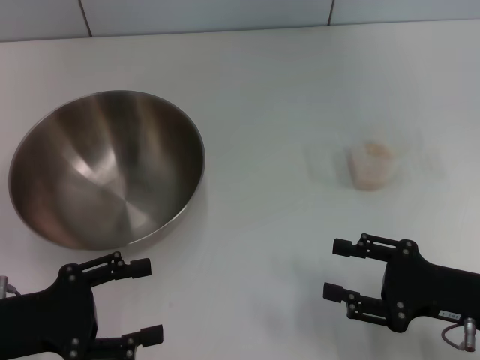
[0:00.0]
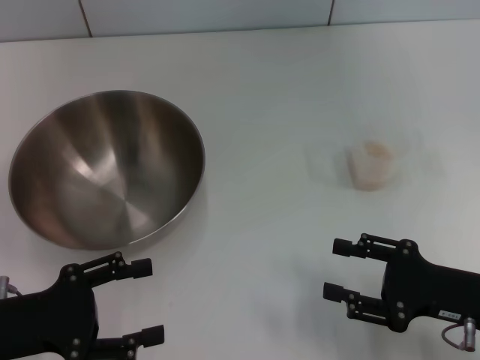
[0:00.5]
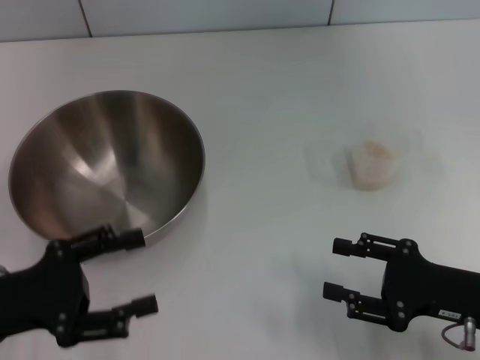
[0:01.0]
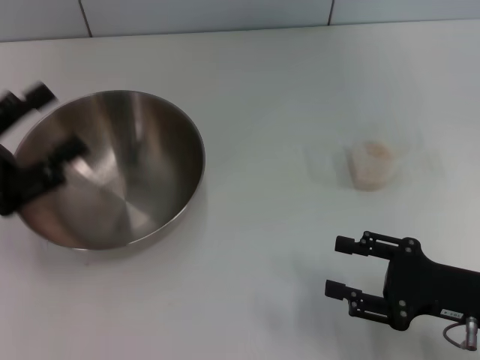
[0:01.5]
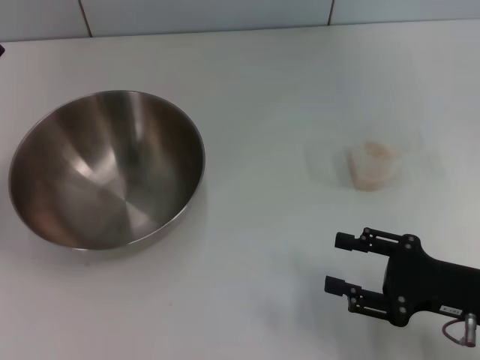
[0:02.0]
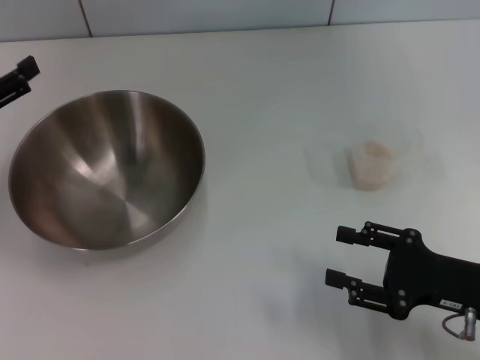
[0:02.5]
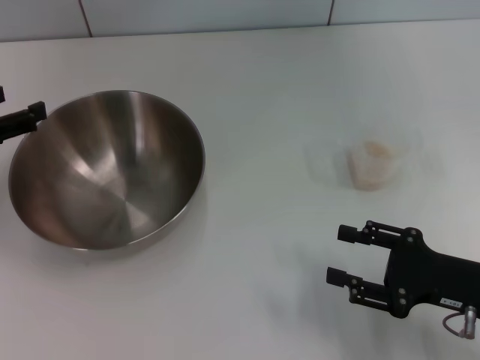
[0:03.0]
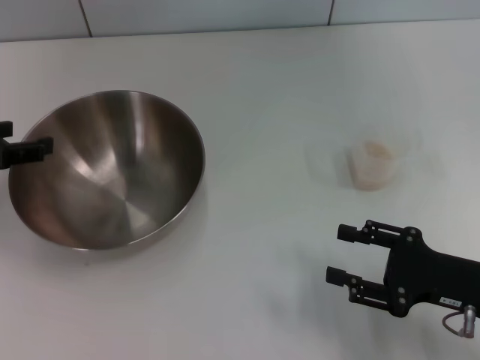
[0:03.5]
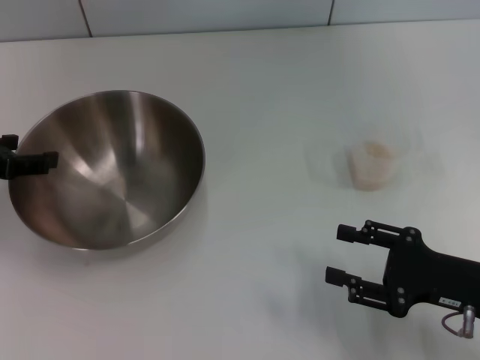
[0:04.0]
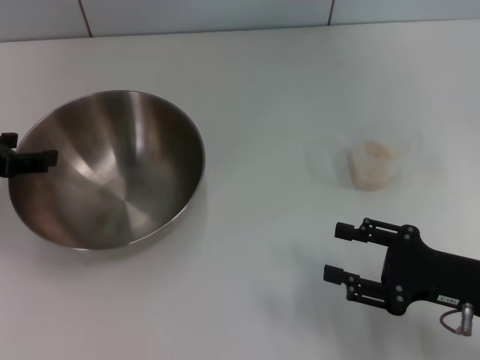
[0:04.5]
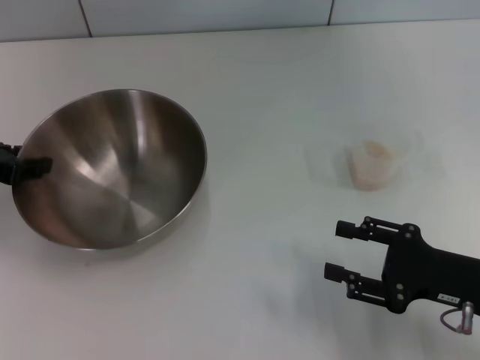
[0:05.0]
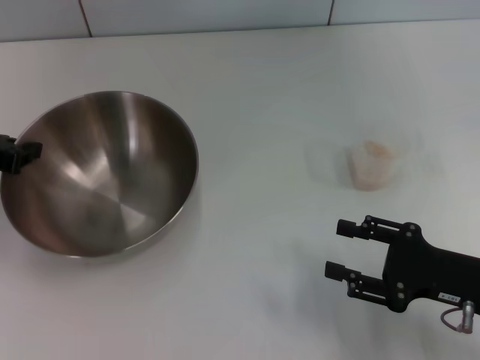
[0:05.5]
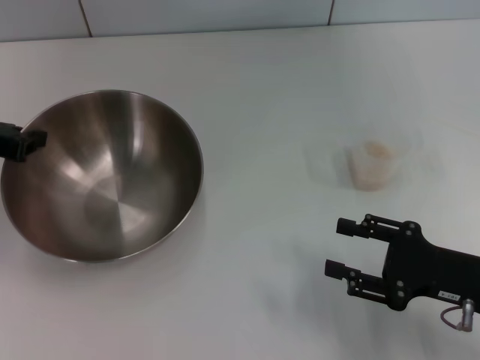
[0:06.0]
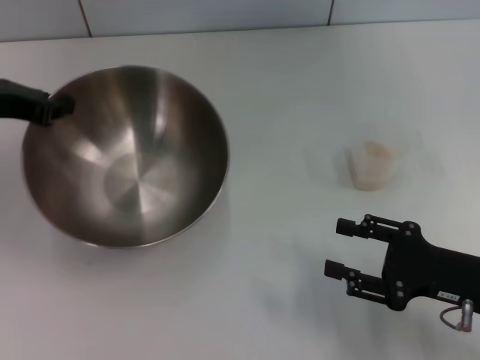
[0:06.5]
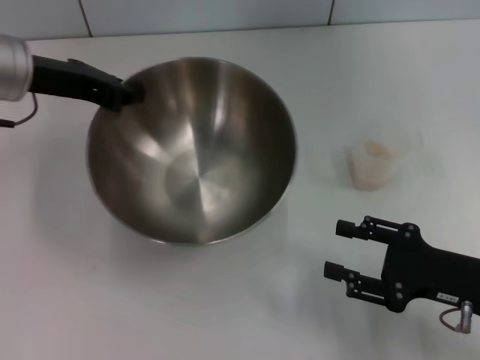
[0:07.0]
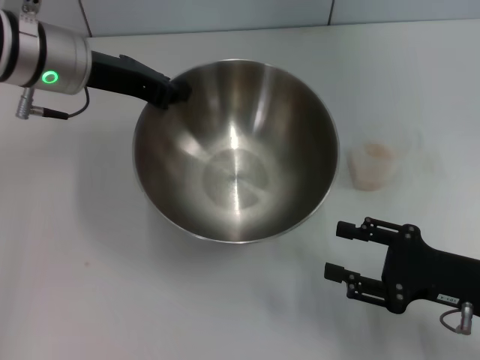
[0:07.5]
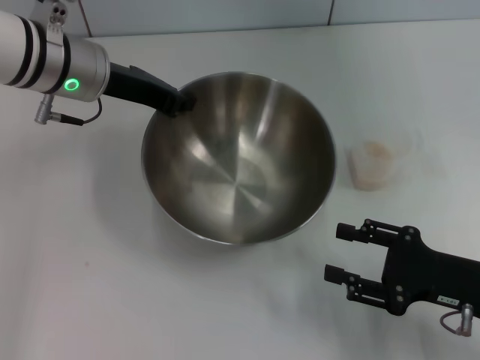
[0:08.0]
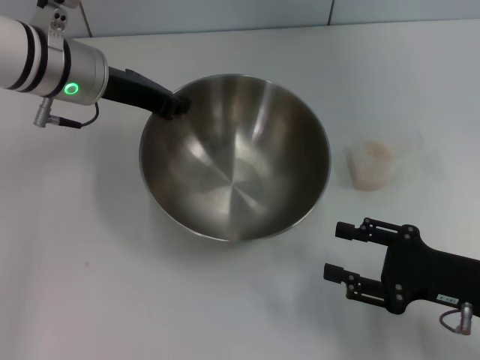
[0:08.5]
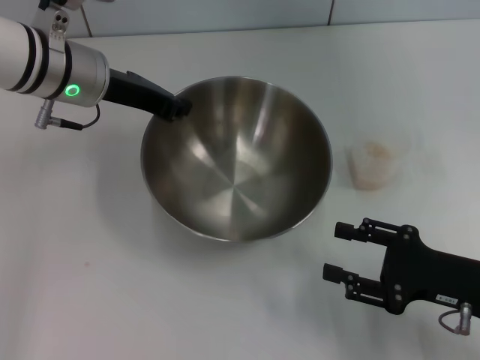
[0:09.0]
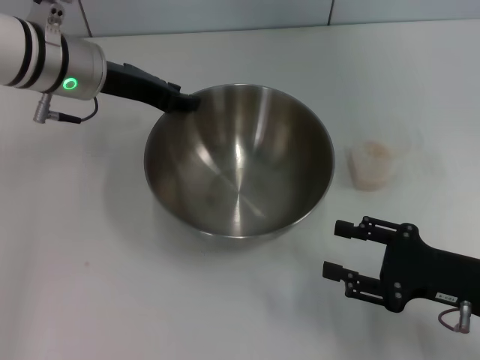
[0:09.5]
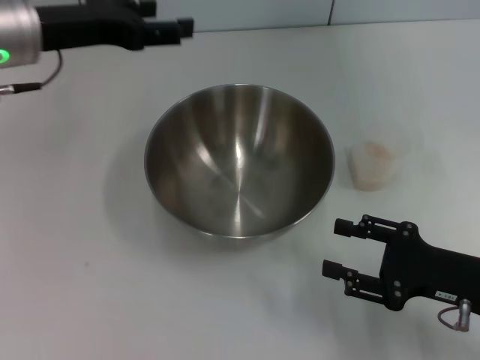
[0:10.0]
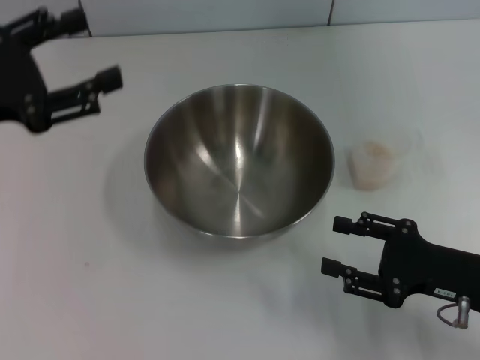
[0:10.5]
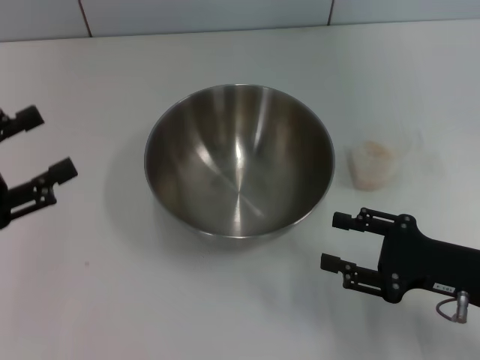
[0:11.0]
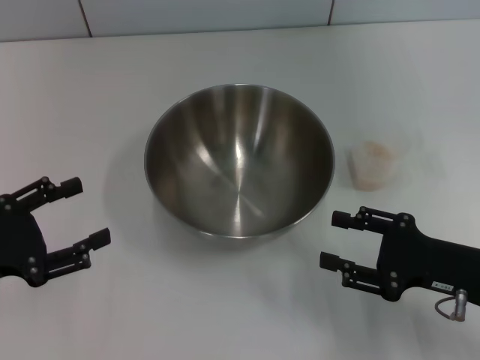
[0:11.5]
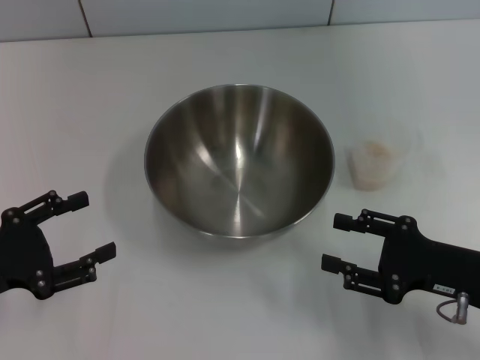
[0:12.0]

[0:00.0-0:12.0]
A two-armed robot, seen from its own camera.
Task of the whole recording: Place the bowl in the middle of the table with one hand and pour the rice from the grain cup into it with the other hand.
Step, 0:00.0 to 0:06.0: Pick up the bowl with the left gripper.
Step, 0:06.5 to 0:09.5: Place the bowl in the center of view with the left gripper.
0:00.0 to 0:02.0: The left gripper moves forward, upward and to the left, some 10 cm.
0:02.0 to 0:04.0: The left gripper goes about 5 cm forward.
0:04.0 to 0:06.0: The left gripper closes its fingers.
0:06.0 to 0:08.0: The left gripper shifts approximately 15 cm to the right and forward.
0:08.0 to 0:10.0: The left gripper opens up.
0:10.0 to 0:12.0: The left gripper heads backward, downward and to the left, covering some 25 cm.

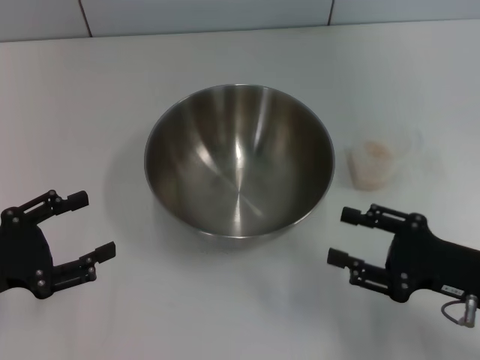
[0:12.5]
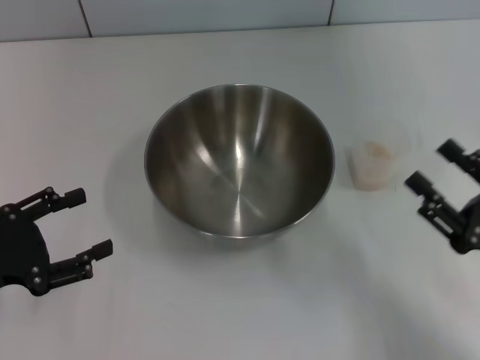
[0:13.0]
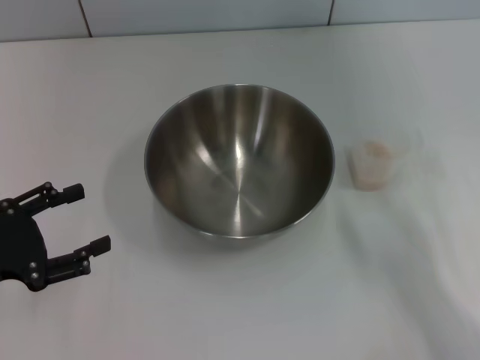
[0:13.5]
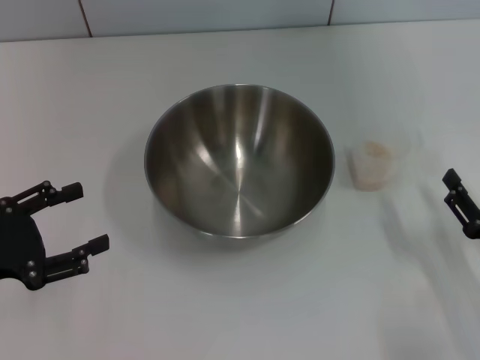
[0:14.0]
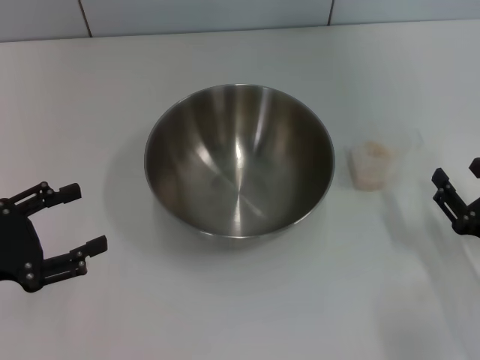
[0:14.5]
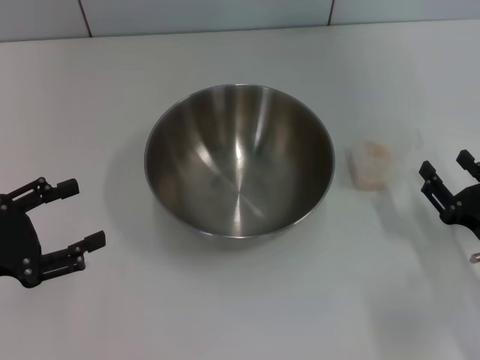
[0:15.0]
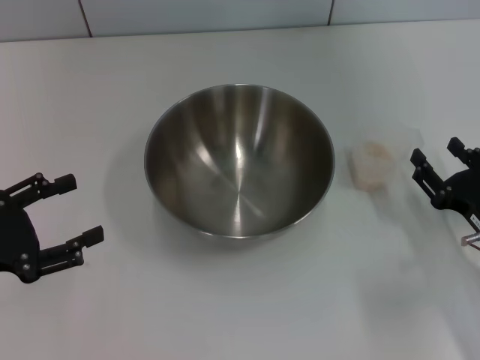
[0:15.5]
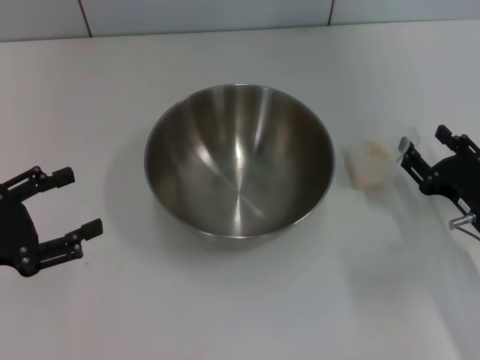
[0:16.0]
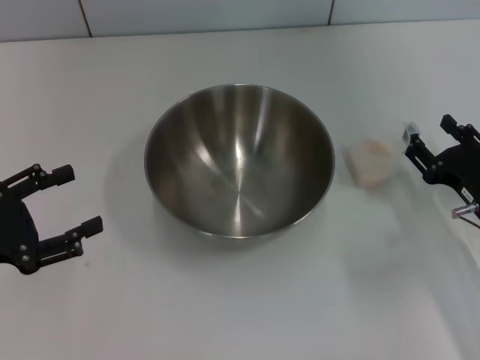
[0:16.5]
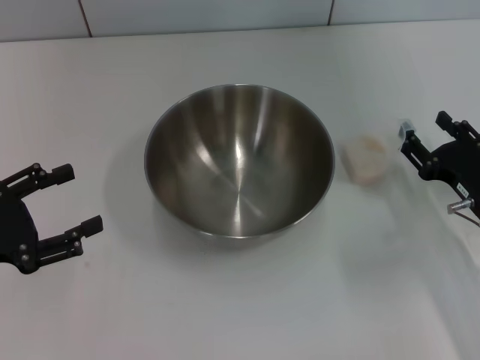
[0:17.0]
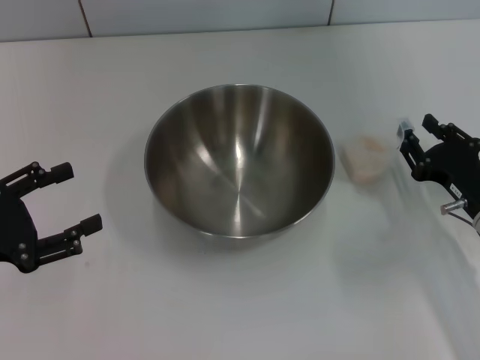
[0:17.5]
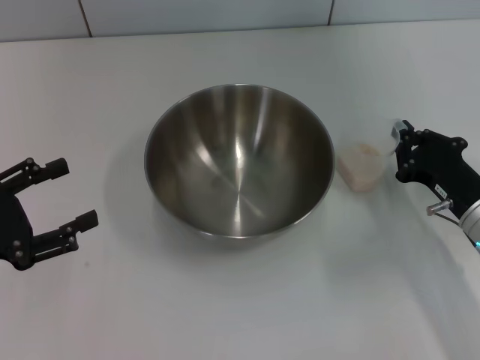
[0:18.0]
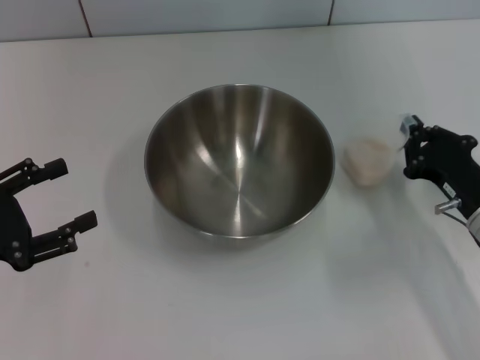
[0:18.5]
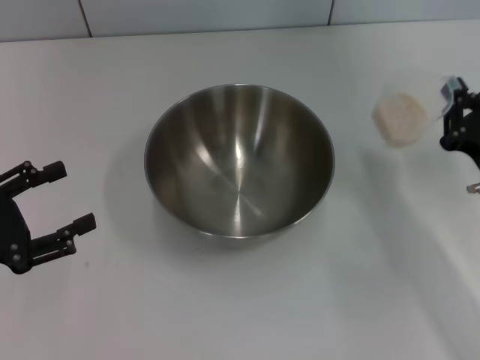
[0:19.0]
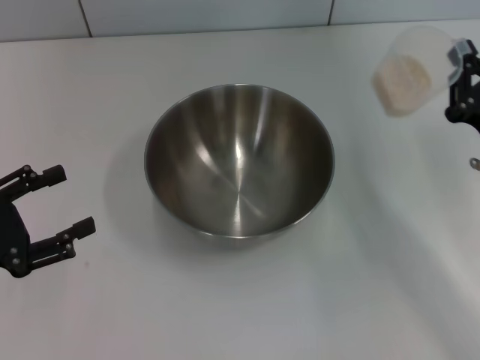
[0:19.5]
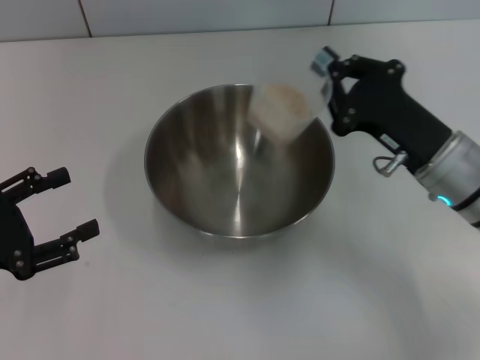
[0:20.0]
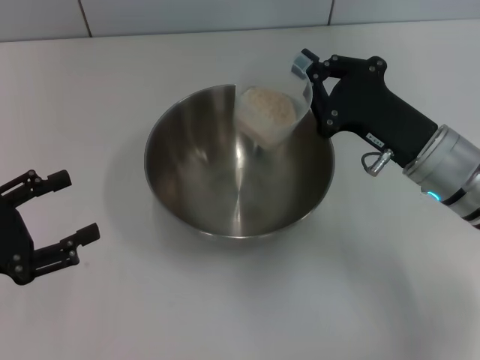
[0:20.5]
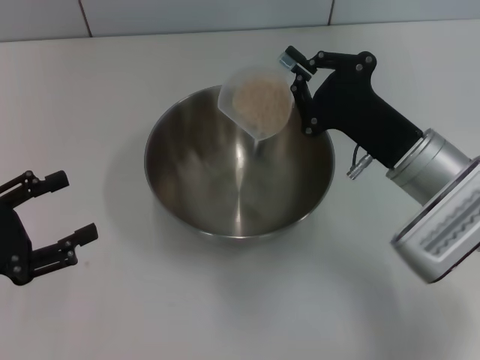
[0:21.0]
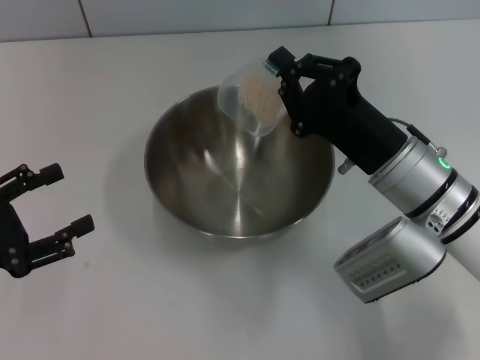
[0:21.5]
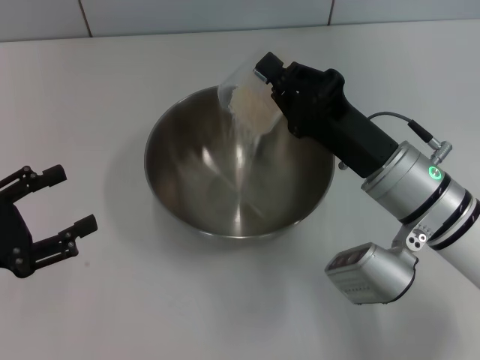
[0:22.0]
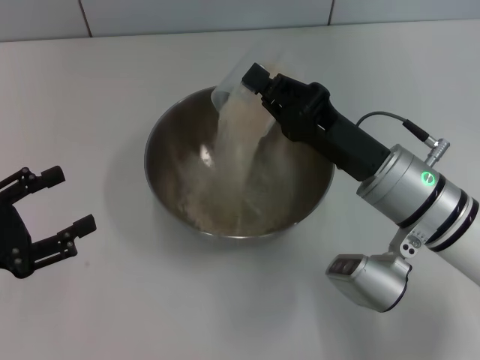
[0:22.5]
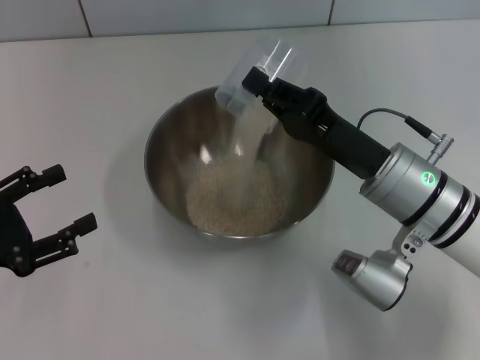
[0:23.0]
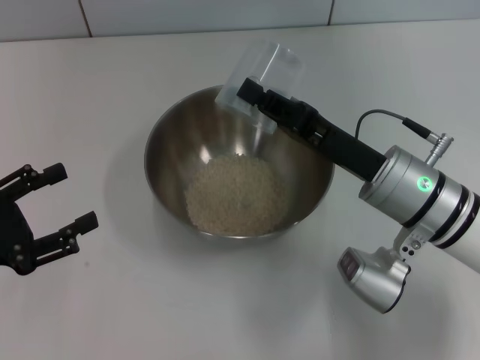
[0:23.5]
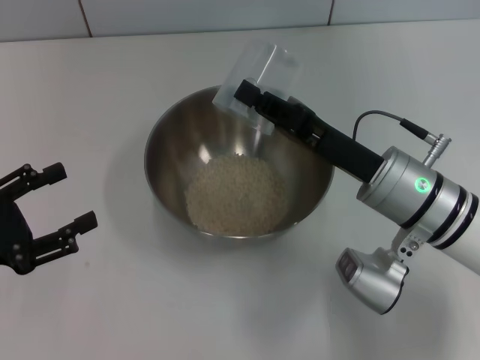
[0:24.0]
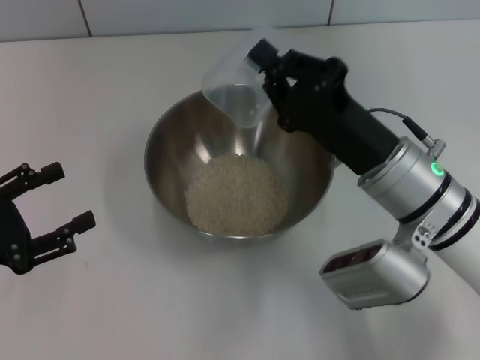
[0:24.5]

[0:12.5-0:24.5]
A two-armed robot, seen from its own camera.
Task of the whole recording: Place the bowl in the middle of the table with one hand and pour the rice from the grain cup into it with the other hand.
Step, 0:12.5 to 0:19.0: Pick up the cup with rice in it with the right gripper.
0:12.5 to 0:14.5: The right gripper ends up about 5 cm from where it was.
0:14.5 to 0:16.5: The right gripper shifts some 5 cm forward.
0:16.5 to 0:18.5: The right gripper closes.
0:18.5 to 0:20.5: The right gripper travels to the left and upward by about 10 cm.
0:20.5 to 0:22.5: The right gripper shifts by approximately 5 cm.
0:22.5 to 0:24.5: The grippers make only small movements.

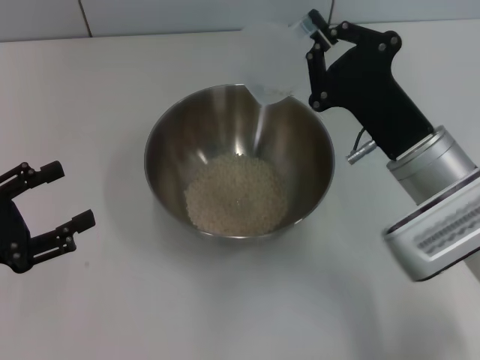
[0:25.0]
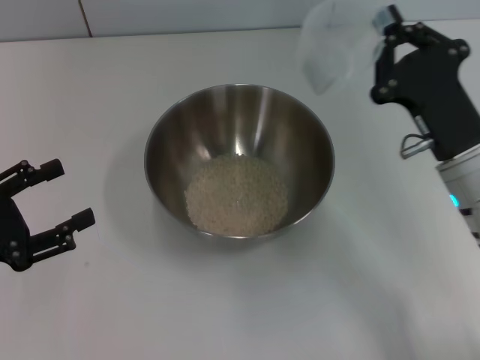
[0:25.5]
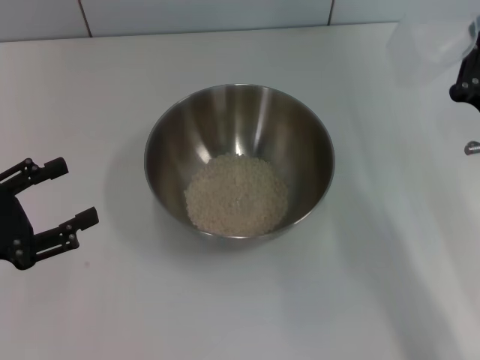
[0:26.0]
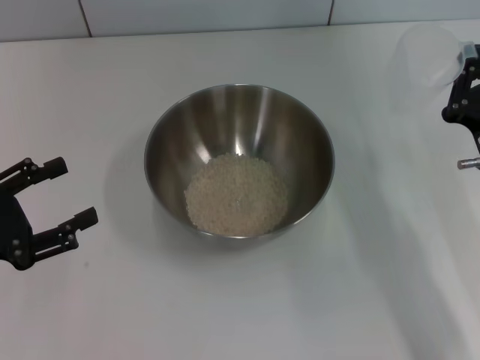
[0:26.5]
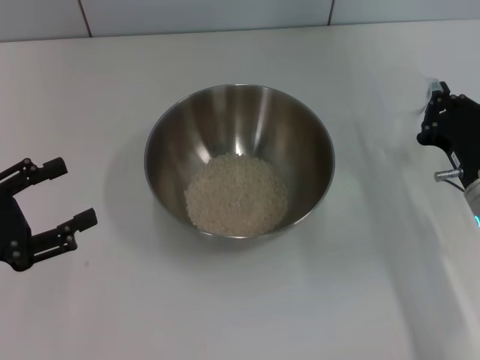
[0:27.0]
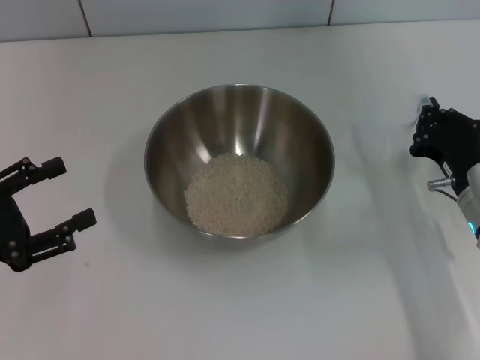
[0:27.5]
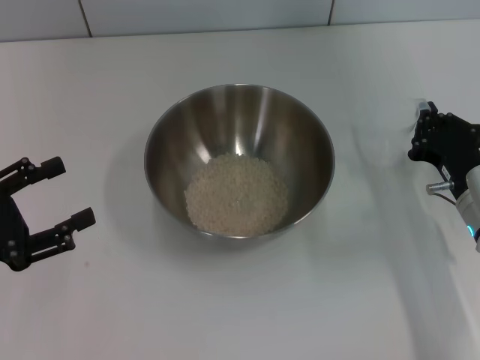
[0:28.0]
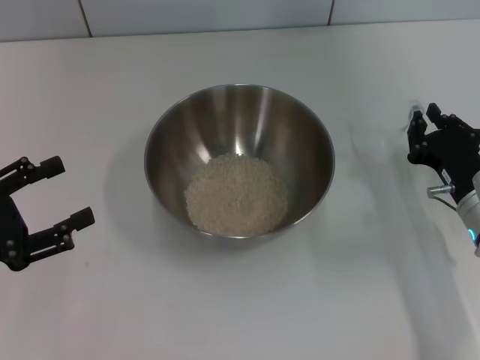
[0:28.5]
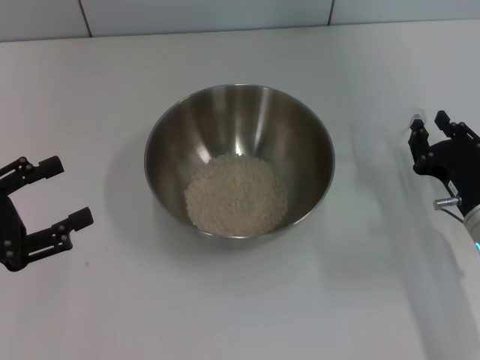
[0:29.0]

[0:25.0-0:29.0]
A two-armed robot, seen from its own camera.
Task of the whole recording: Place the bowl in the middle of the table with one hand and pour the rice from the grain cup into it with the other hand.
0:25.0 to 0:27.0: The right gripper heads to the right and downward, covering some 10 cm.
0:27.0 to 0:29.0: The right gripper opens its fingers.
